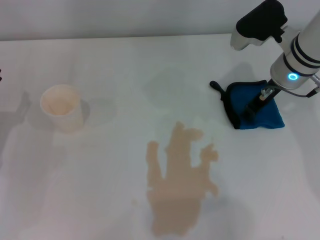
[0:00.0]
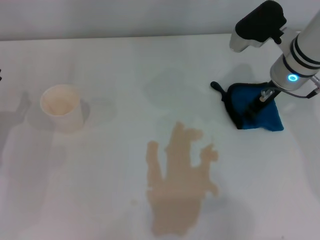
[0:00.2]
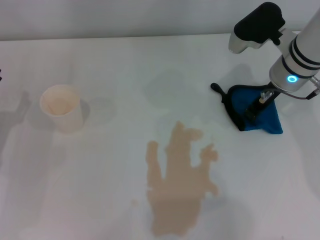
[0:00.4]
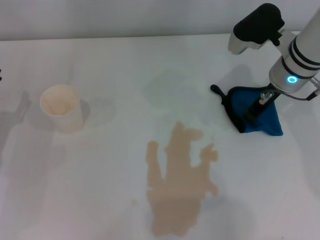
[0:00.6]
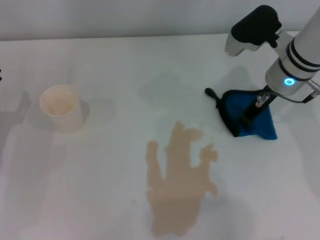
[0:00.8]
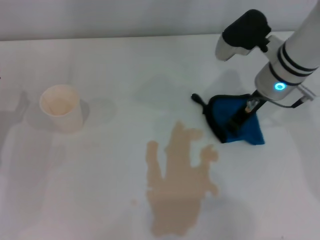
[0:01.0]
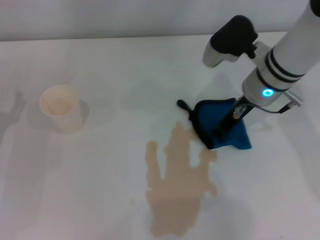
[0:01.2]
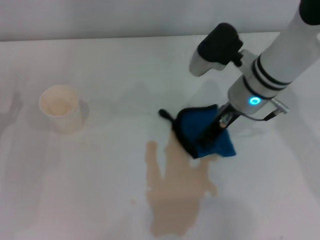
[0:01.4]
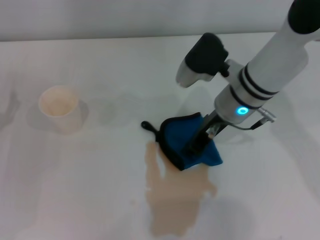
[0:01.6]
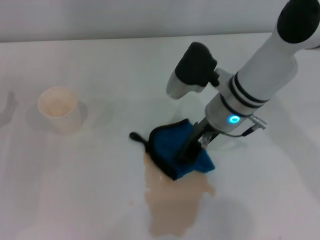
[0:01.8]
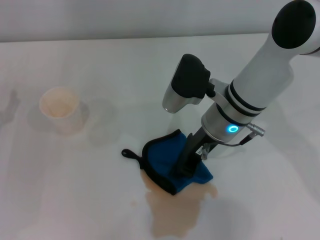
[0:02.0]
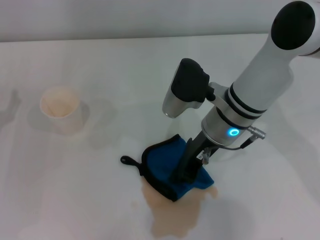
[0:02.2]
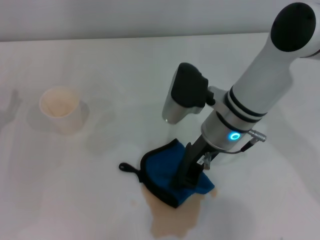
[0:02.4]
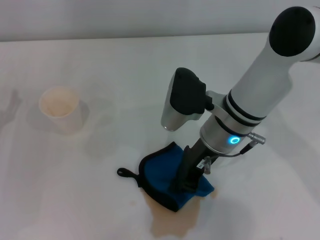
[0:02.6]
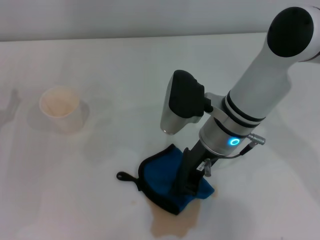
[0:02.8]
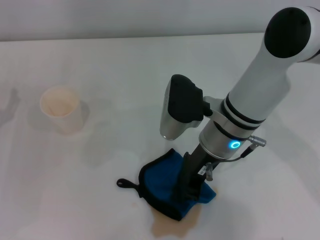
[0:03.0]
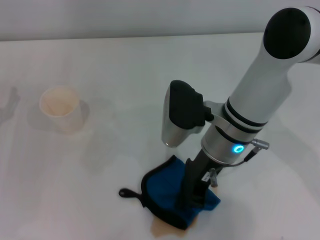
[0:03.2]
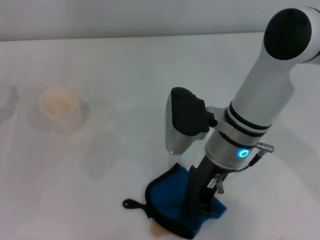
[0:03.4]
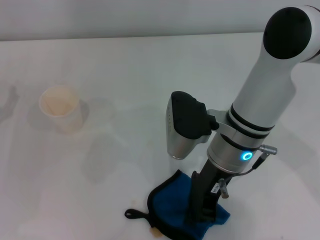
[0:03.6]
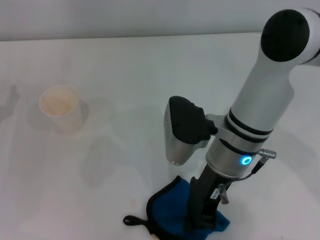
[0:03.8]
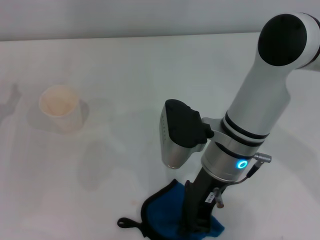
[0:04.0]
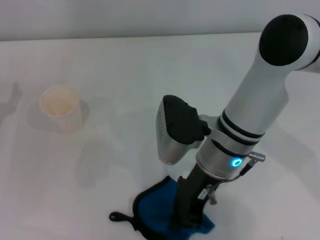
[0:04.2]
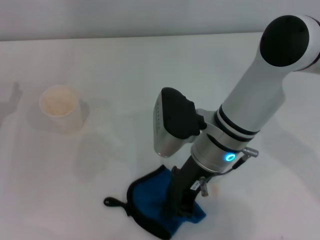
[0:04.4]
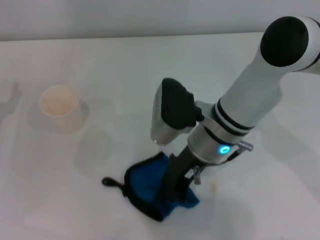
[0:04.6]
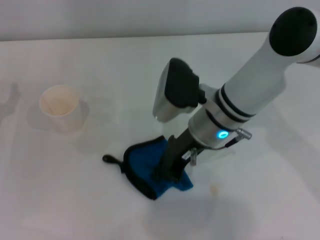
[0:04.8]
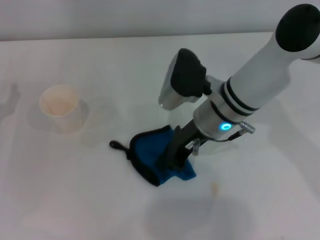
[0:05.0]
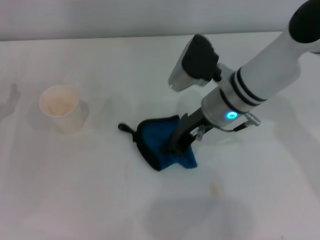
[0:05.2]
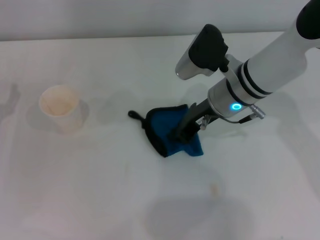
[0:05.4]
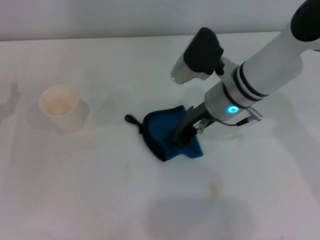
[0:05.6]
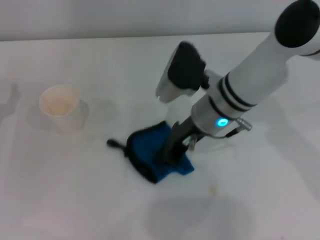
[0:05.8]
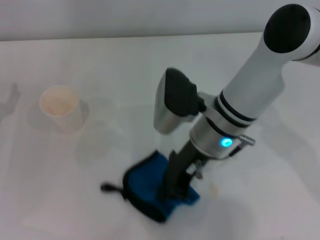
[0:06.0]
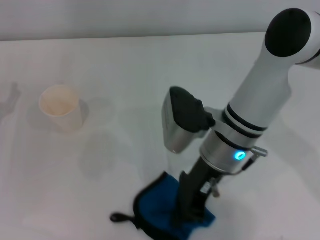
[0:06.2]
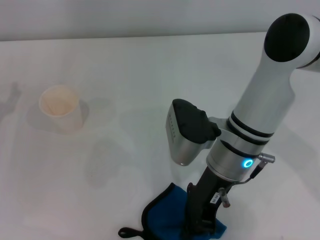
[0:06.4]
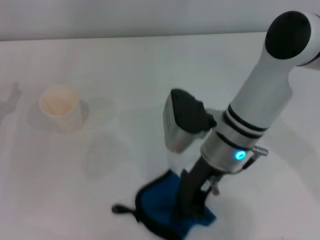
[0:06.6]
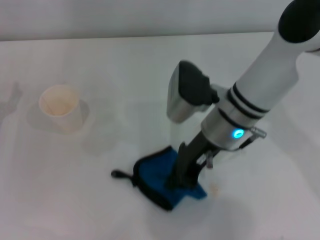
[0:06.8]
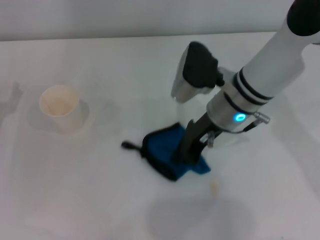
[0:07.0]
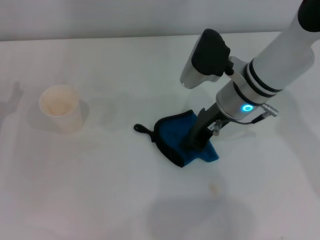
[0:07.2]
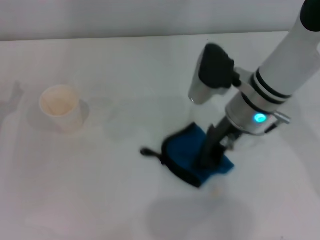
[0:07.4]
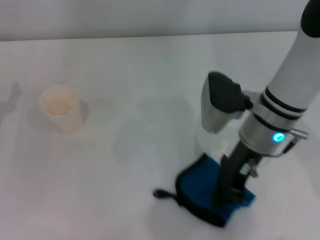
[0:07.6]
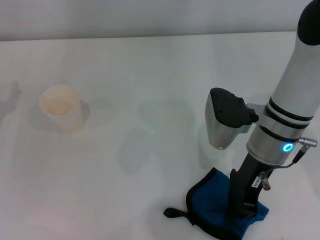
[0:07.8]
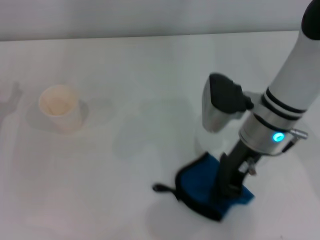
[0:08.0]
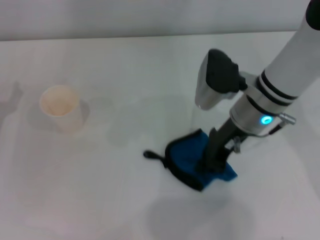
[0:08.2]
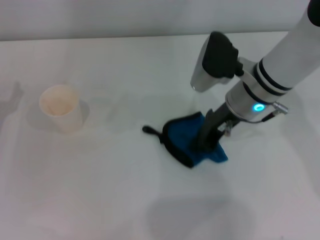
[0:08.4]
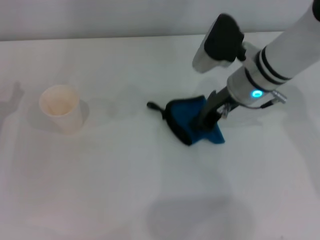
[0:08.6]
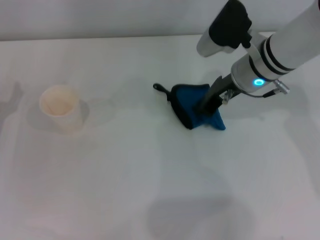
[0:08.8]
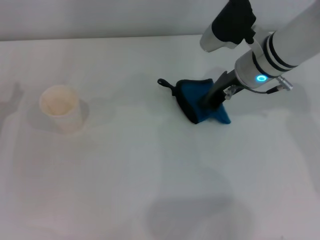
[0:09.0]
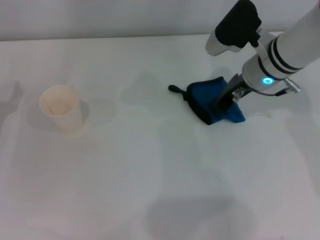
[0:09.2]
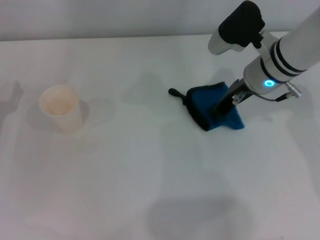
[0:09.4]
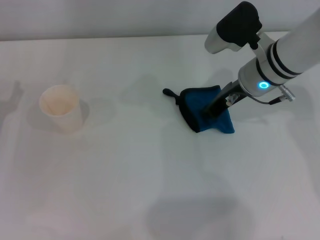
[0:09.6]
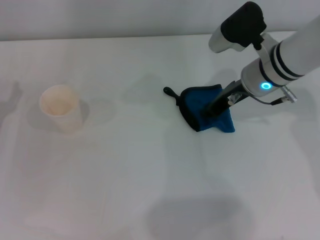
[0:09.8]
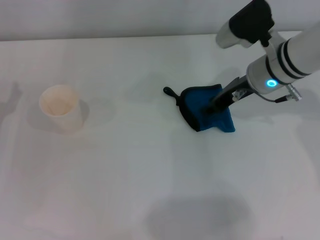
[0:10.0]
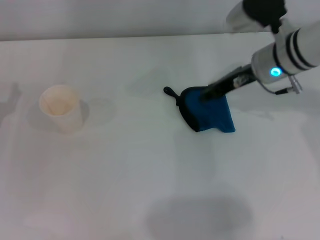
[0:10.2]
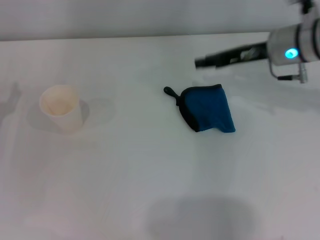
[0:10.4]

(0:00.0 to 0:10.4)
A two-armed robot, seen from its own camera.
Step, 0:00.0 - 0:08.4: Wipe the stains off the table with the right gripper.
Step, 0:08.6 - 0:10.2: Place the rag on the table with the right gripper.
0:00.0 - 0:01.4: The right gripper shifts roughly 5 cm to the left, and closes up.
0:01.4 - 0:03.0: The right gripper is displaced backward and to the left by approximately 10 cm.
0:03.0 - 0:04.4: The grippers move only a little.
0:06.0 - 0:07.4: The right gripper goes approximately 5 cm to the right.
0:07.4 - 0:09.0: The right gripper heads forward, covering about 5 cm.
0:09.0 - 0:10.4: The right gripper is displaced to the right by roughly 5 cm, and opens.

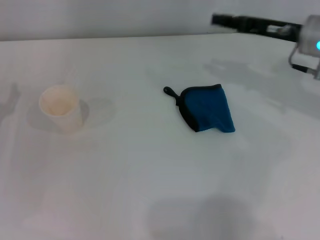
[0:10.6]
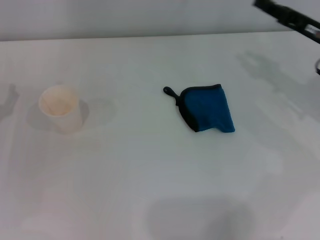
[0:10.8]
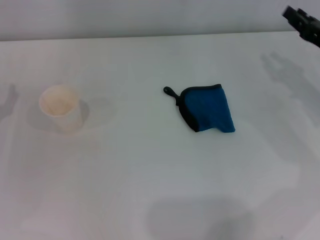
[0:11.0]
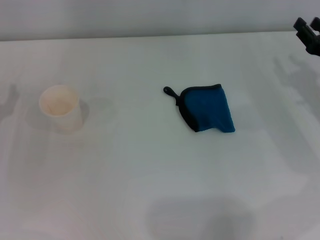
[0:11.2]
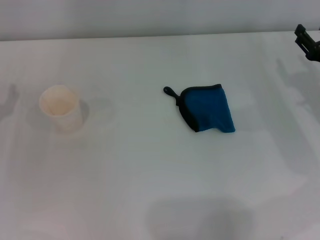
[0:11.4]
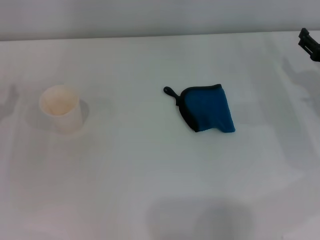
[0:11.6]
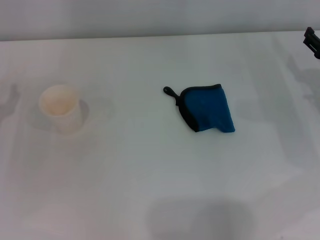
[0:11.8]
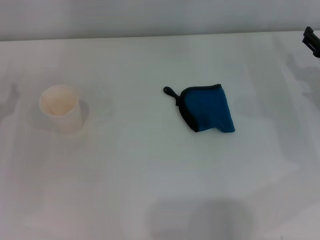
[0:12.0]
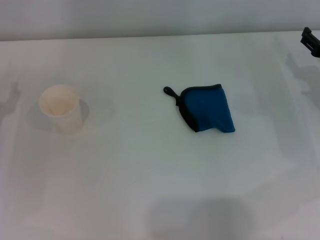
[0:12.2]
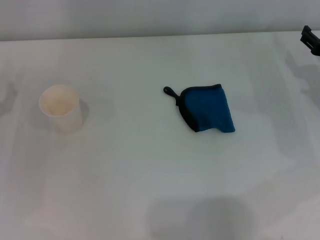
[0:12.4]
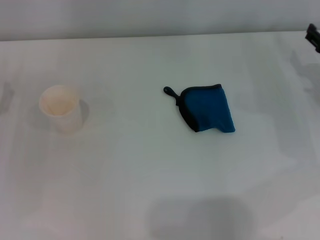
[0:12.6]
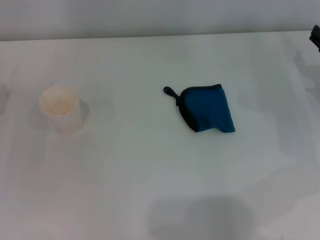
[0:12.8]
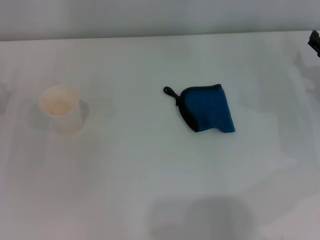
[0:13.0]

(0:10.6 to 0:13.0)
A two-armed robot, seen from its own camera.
0:10.6 - 0:11.8: The right gripper travels downward and to the right by roughly 10 cm, and opens up.

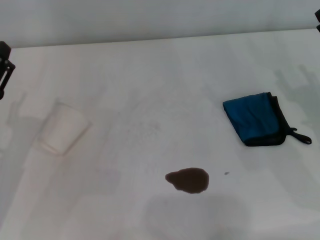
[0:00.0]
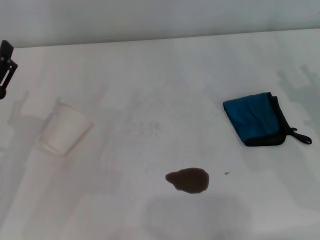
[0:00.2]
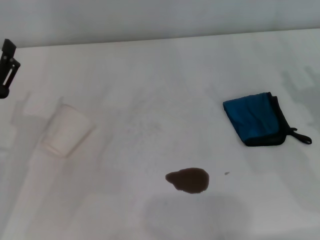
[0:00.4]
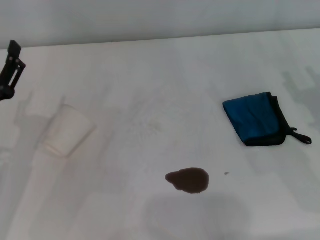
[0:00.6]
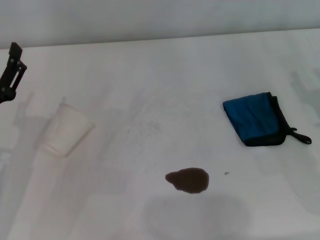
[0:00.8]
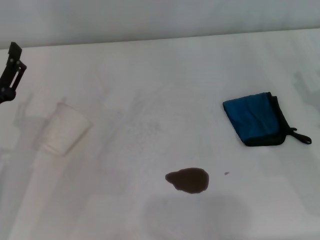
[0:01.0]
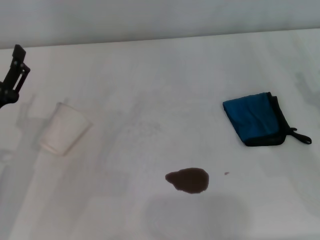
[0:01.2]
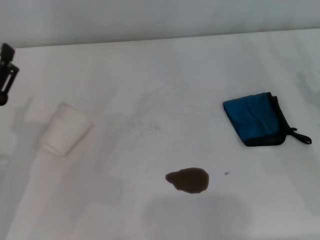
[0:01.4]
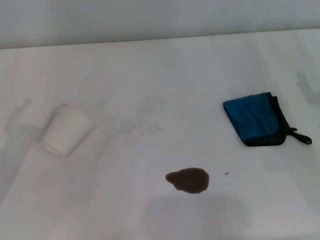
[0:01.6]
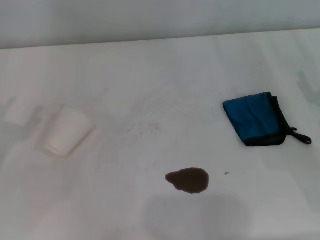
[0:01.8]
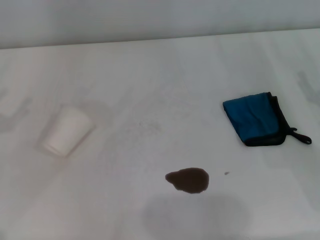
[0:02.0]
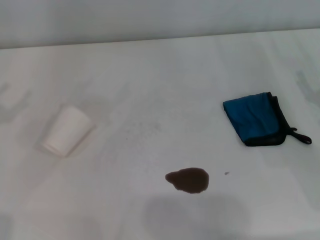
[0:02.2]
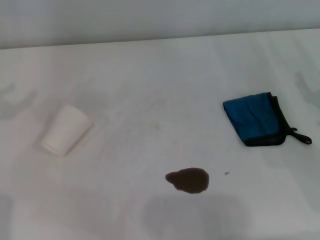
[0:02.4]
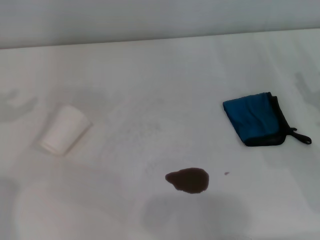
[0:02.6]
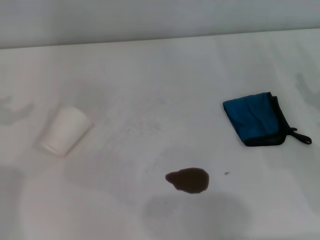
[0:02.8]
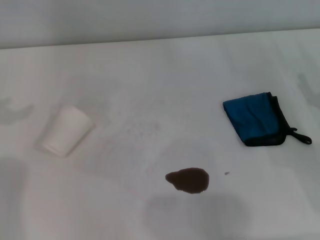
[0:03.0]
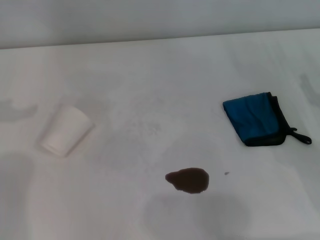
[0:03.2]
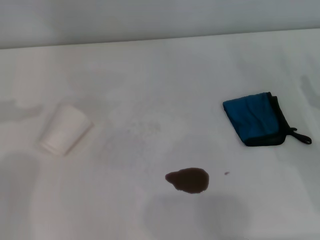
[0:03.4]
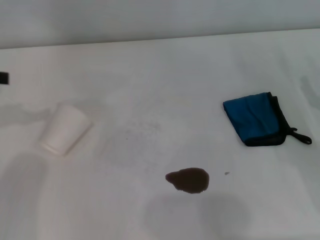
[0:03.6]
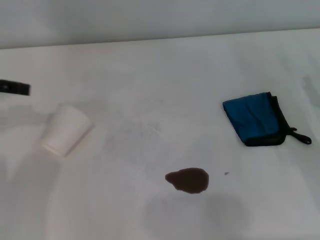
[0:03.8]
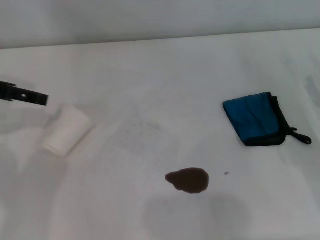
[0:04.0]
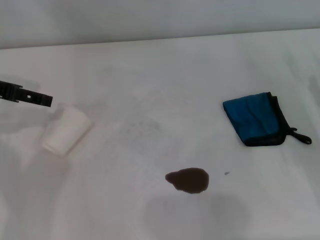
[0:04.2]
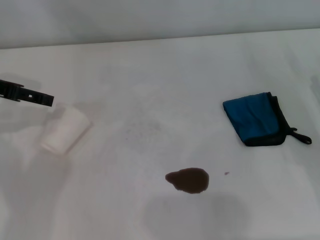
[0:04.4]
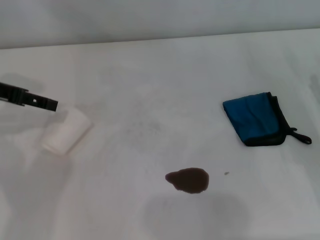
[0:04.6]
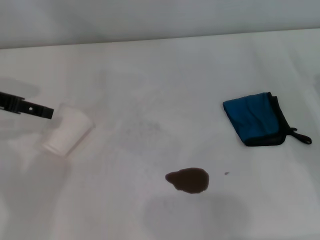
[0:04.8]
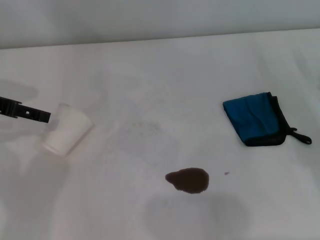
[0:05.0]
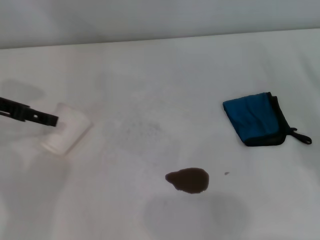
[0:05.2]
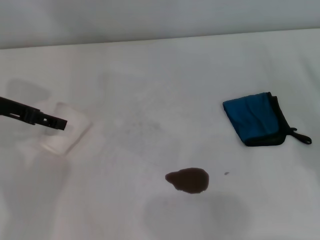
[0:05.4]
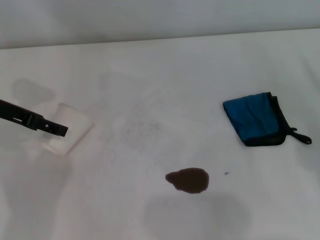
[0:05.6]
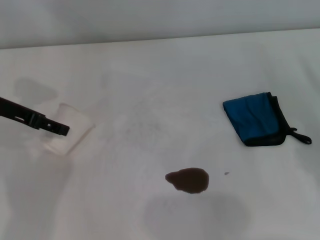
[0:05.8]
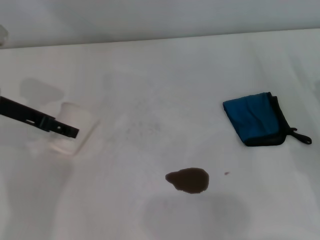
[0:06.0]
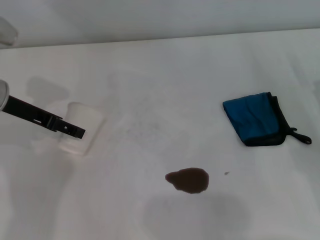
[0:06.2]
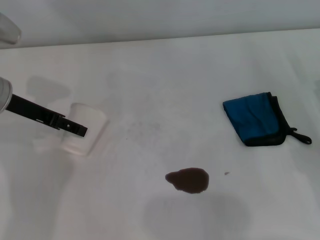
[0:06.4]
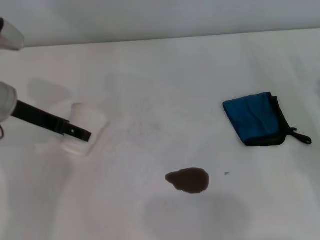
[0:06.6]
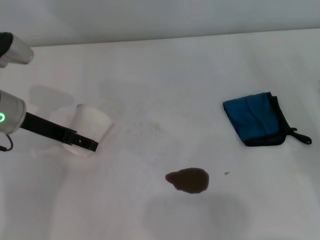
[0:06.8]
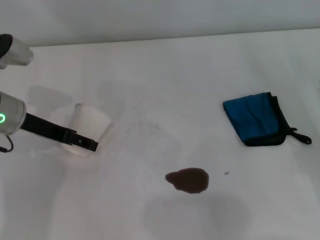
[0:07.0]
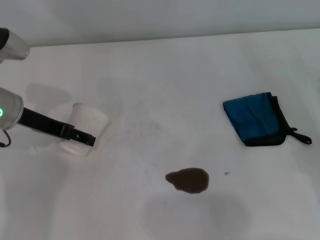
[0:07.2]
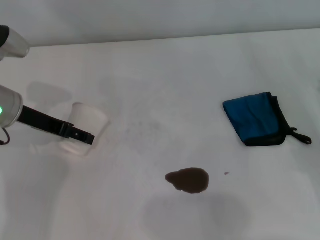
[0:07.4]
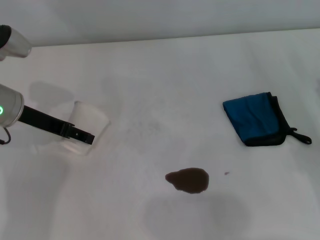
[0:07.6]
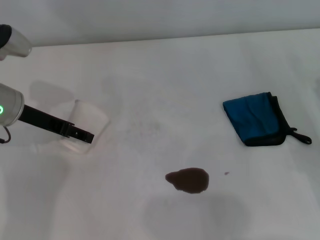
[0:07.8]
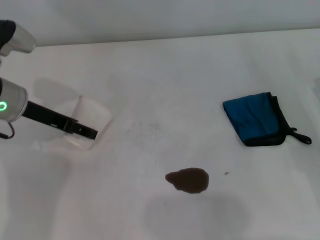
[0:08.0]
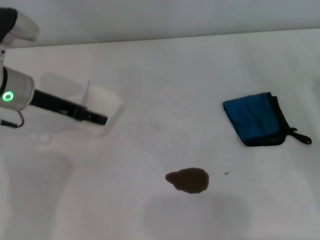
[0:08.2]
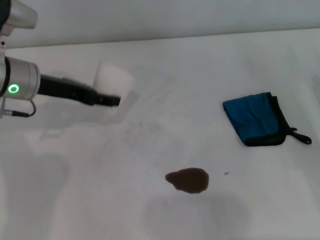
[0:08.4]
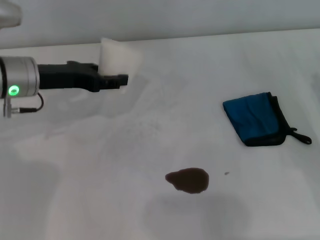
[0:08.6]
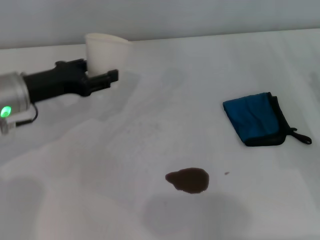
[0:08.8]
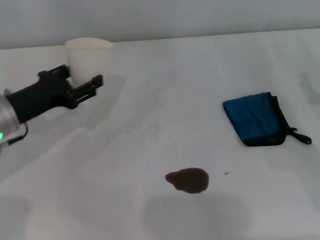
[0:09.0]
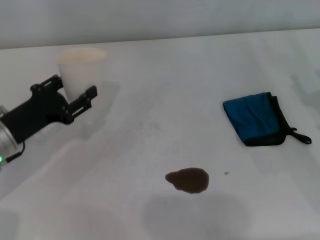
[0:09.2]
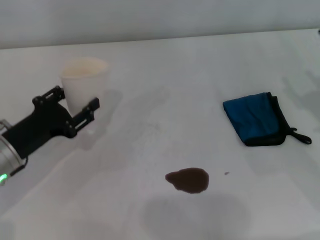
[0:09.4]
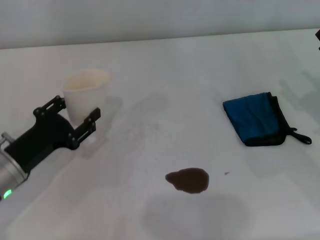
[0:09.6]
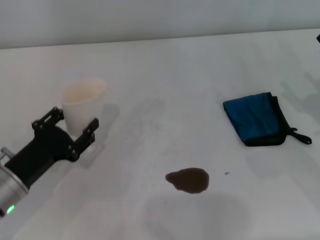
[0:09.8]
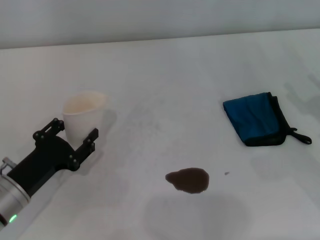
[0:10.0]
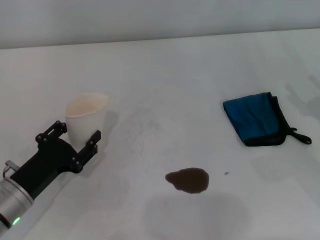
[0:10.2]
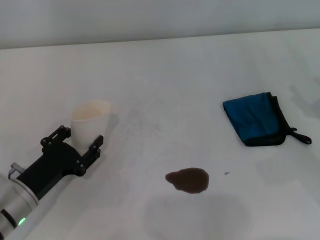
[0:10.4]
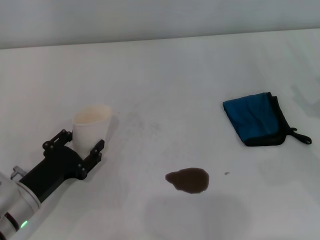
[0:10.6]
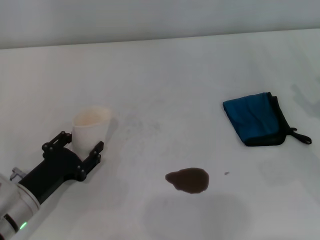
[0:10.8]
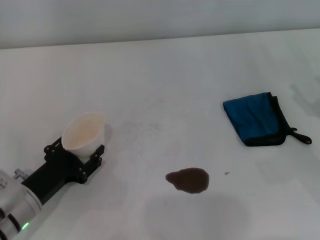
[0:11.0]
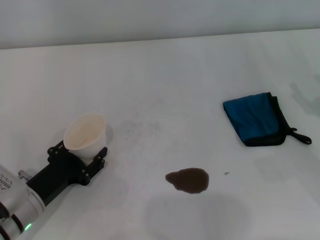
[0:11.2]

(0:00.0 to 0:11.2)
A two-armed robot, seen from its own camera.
Step, 0:00.0 - 0:06.8: Grasp the paper cup with the left gripper.
0:03.2 - 0:04.8: The left gripper travels to the right and downward by approximately 10 cm.
0:04.8 - 0:06.4: The left gripper heads to the right, covering approximately 5 cm.
0:06.4 - 0:08.0: The left gripper closes.
0:08.0 - 0:09.6: The left gripper heads backward and downward, covering some 15 cm, and closes its fingers.
0:09.6 - 0:11.2: The left gripper moves some 5 cm.
